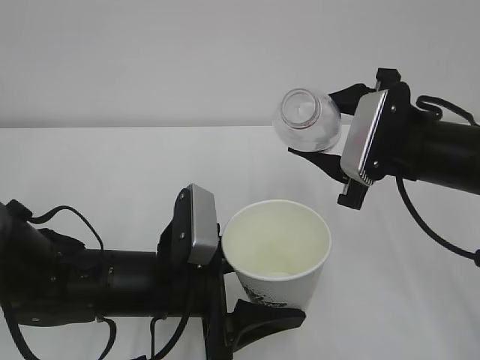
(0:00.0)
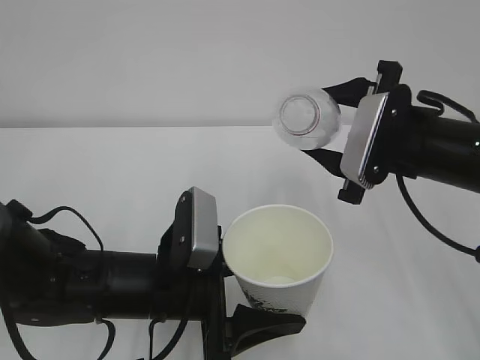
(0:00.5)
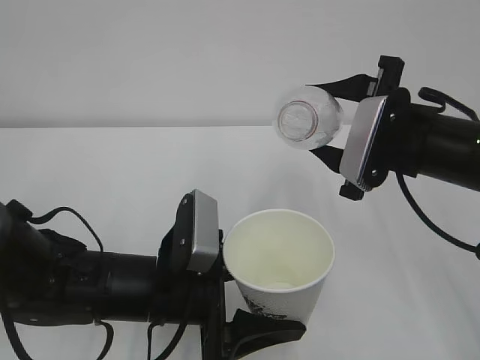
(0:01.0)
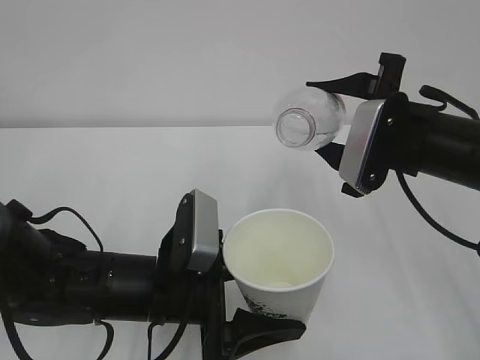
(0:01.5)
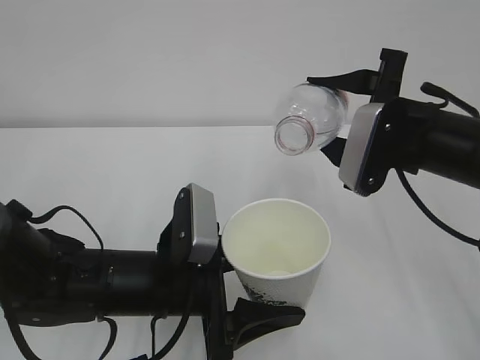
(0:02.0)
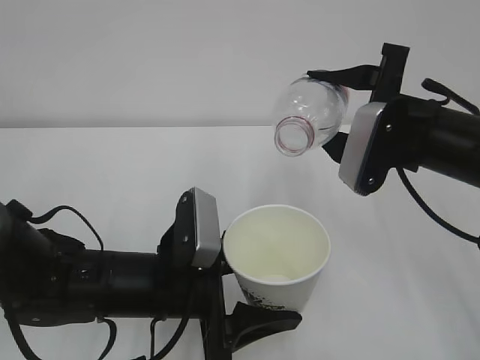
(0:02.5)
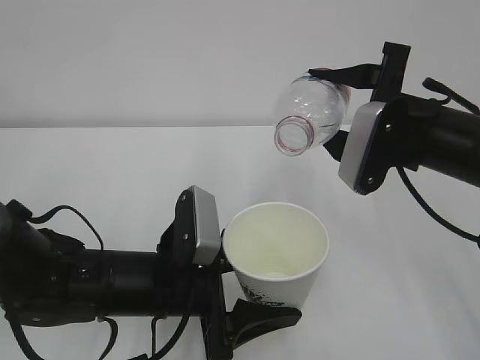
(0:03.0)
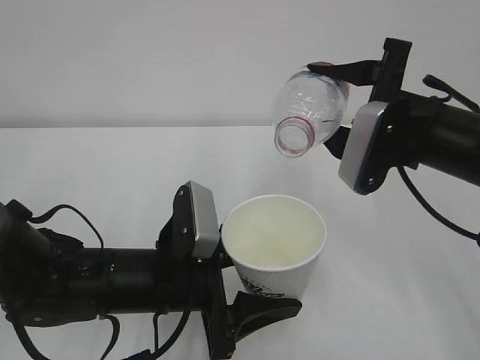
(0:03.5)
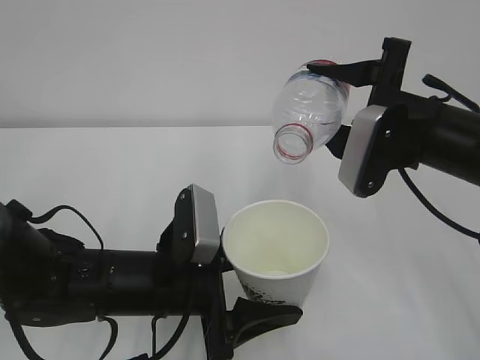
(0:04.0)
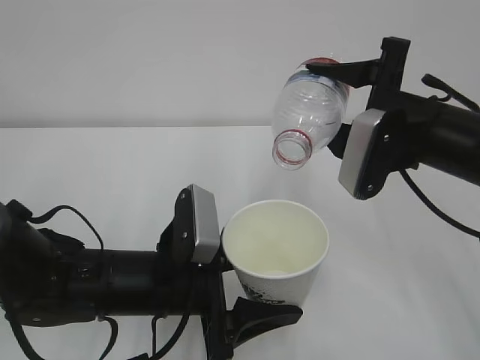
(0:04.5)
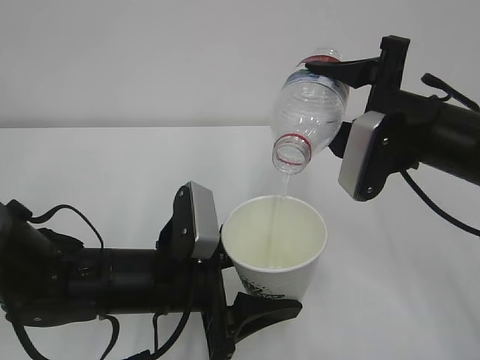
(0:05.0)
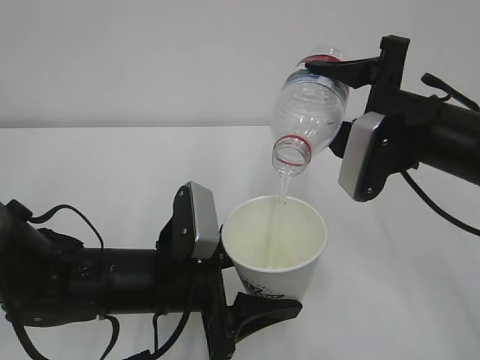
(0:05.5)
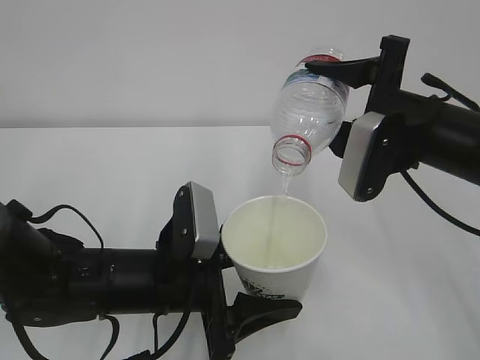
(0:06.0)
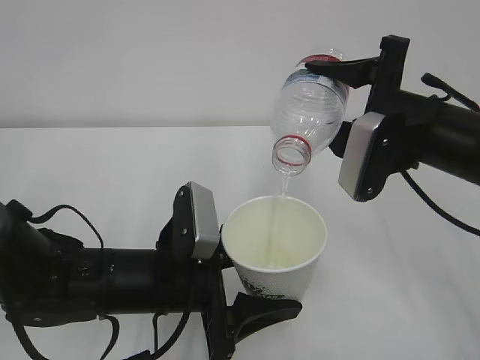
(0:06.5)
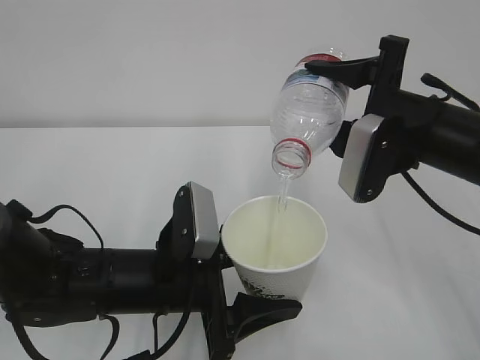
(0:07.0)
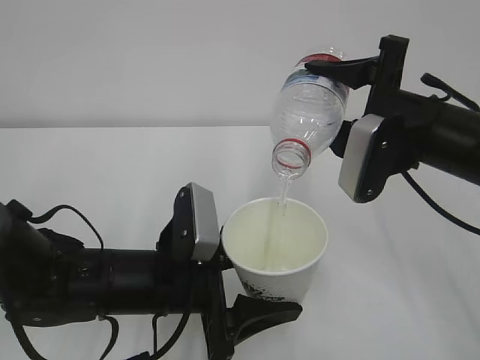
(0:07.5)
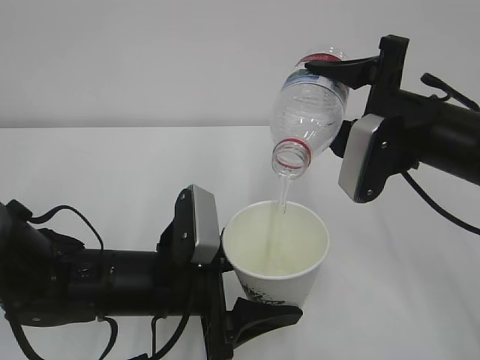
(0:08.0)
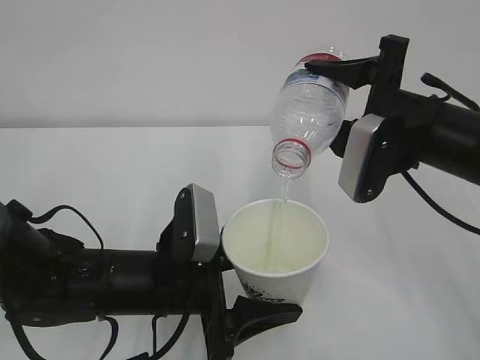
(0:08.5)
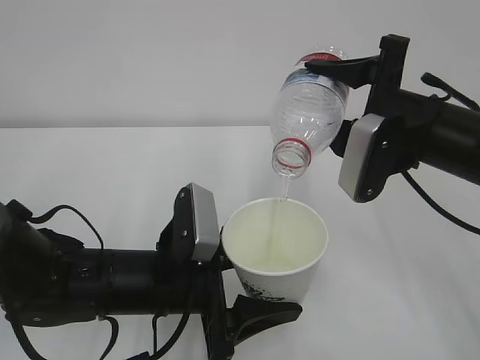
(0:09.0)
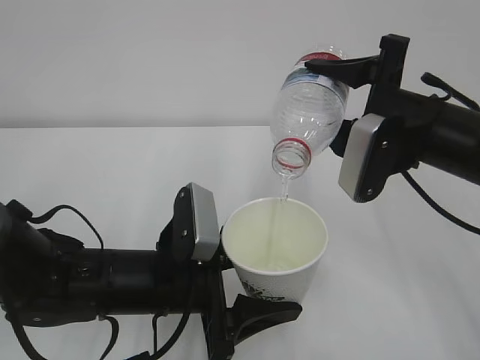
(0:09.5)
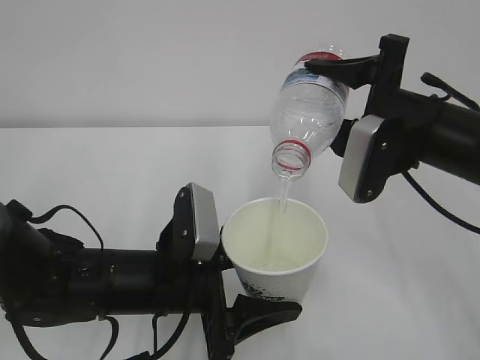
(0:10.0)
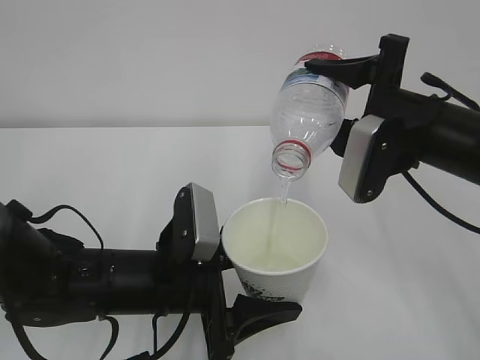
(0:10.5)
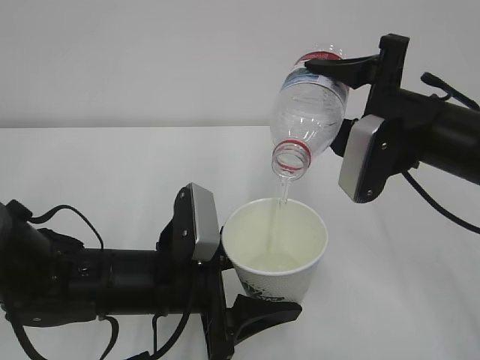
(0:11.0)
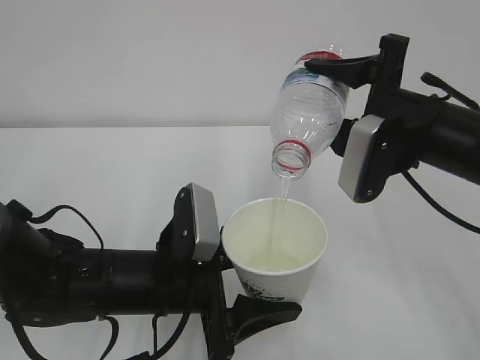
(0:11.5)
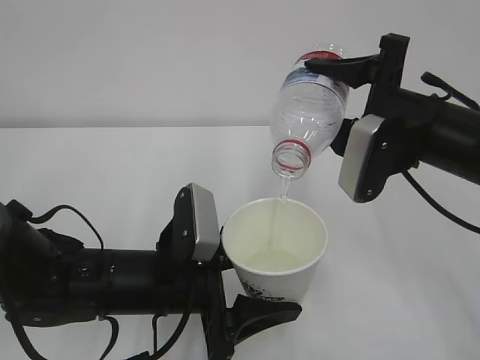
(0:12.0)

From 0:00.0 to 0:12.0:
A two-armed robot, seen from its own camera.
From 0:00.0 to 0:02.0: The grippers move only a little.
From 0:02.0 to 0:06.0: The grippers stay close to where they were, moving slightly.
From 0:06.0 to 0:12.0: Both grippers stay put.

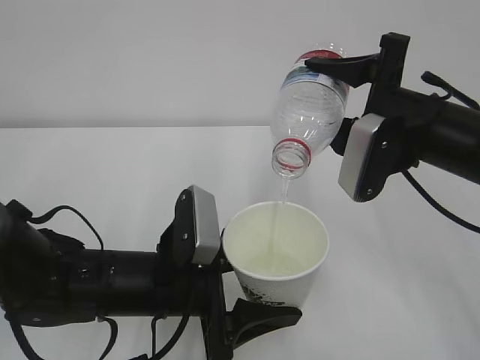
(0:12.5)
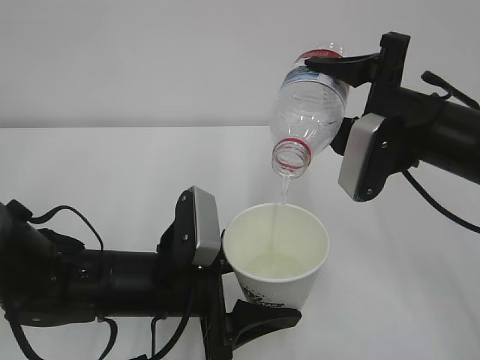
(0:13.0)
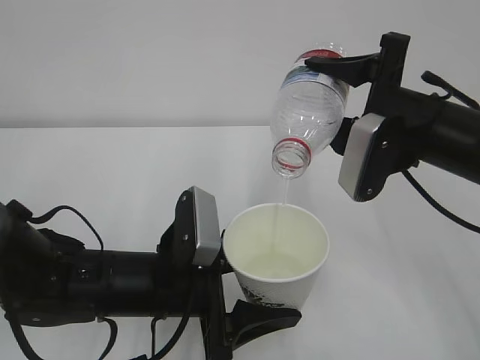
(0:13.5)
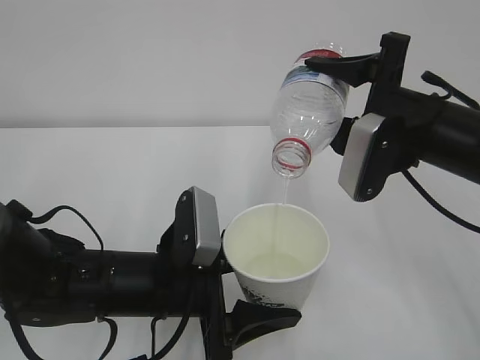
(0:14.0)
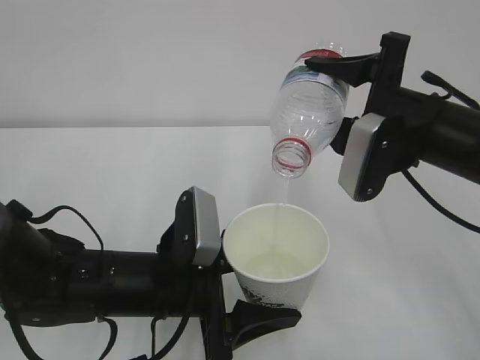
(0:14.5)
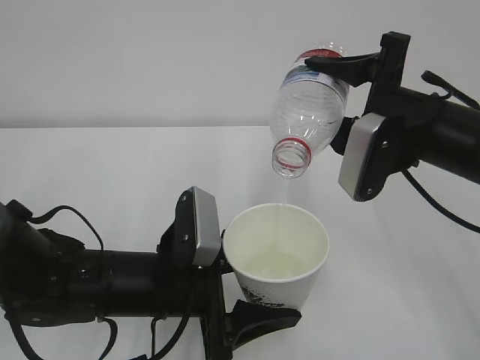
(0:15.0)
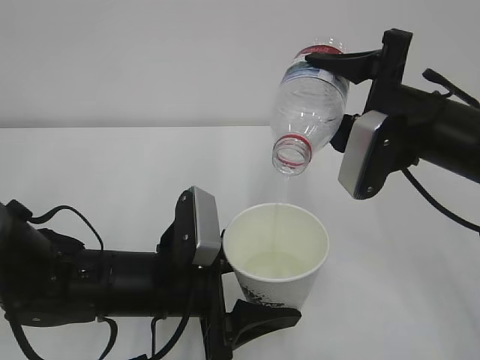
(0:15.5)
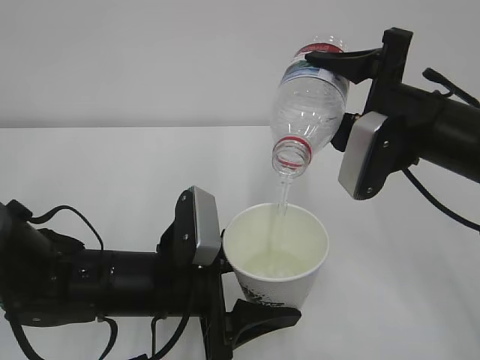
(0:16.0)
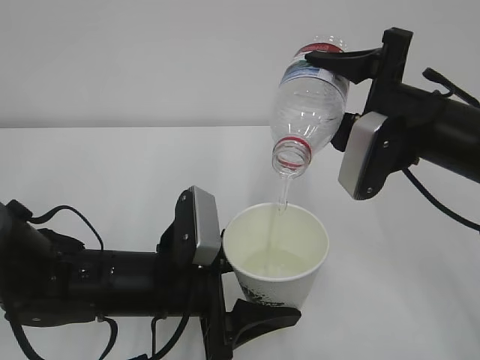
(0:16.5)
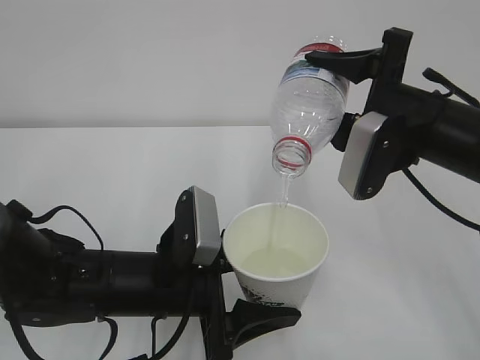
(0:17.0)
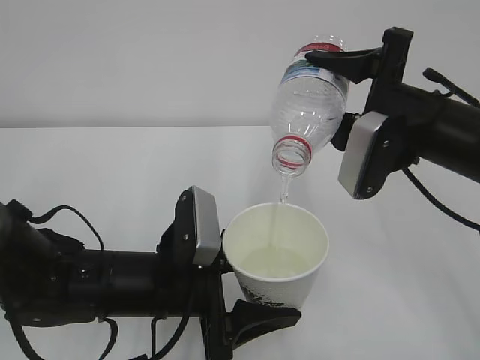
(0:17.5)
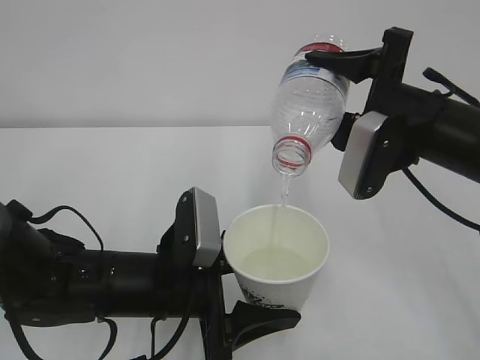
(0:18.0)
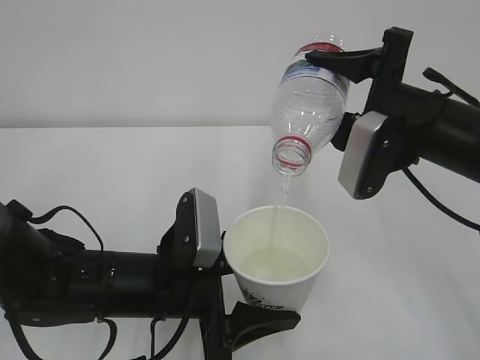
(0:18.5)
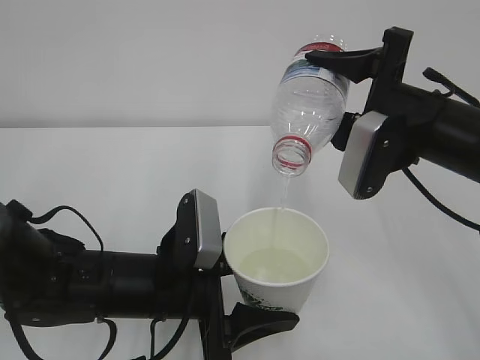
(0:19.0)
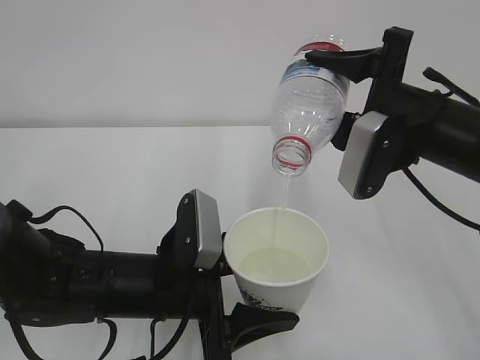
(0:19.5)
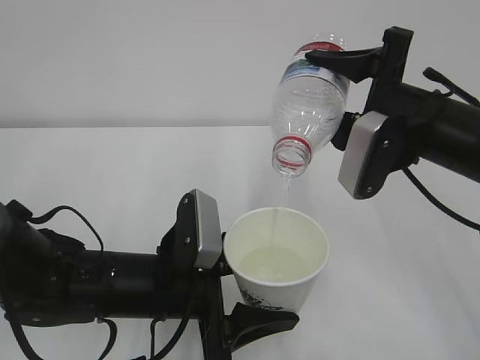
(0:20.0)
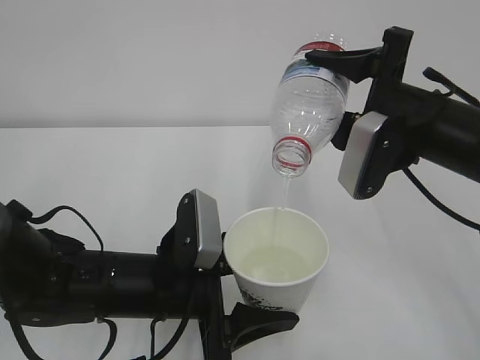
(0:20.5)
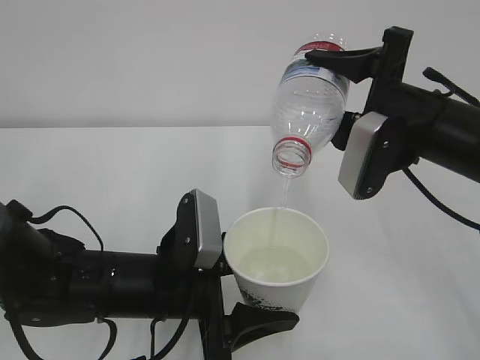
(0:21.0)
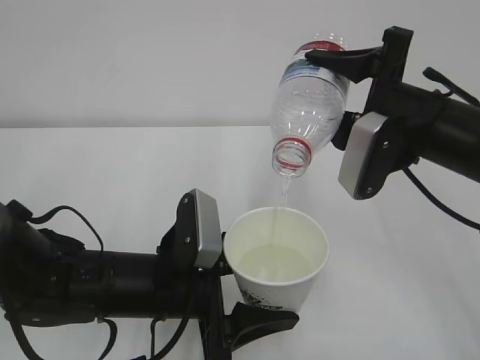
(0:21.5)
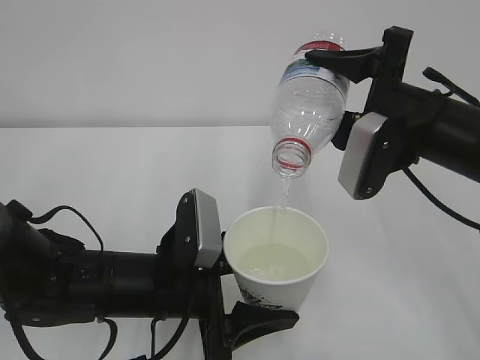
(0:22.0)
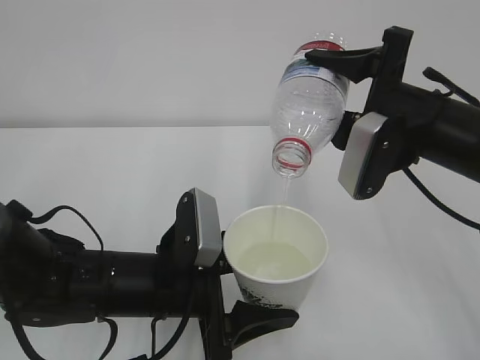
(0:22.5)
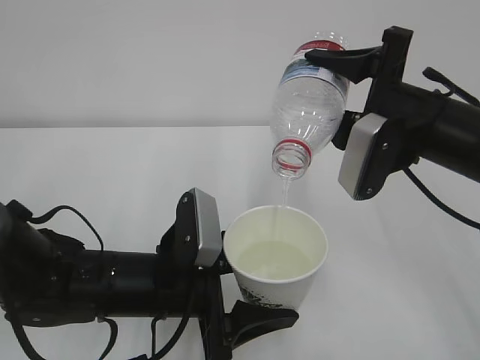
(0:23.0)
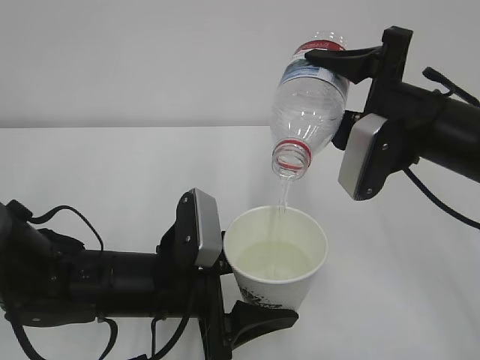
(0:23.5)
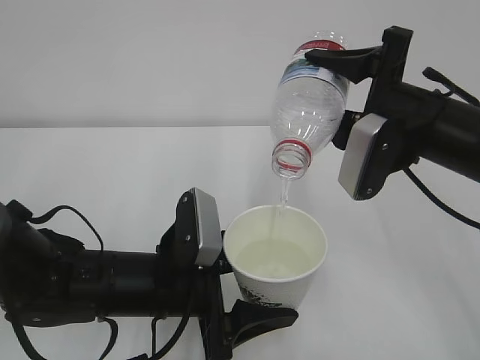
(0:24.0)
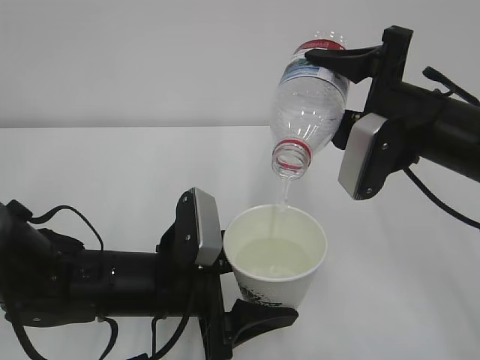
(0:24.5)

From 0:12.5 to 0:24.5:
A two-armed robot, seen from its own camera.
From 0:12.5 to 0:24.5: Neither gripper changes place.

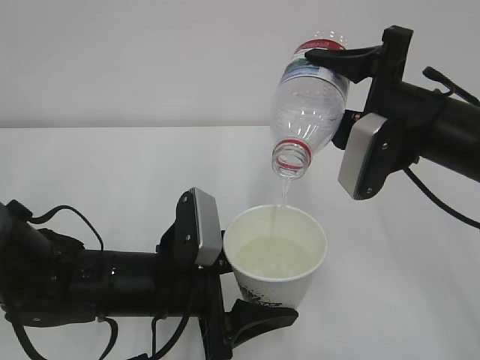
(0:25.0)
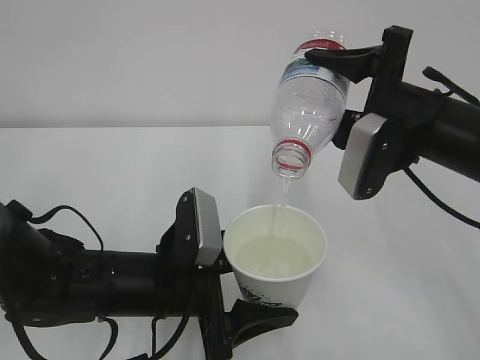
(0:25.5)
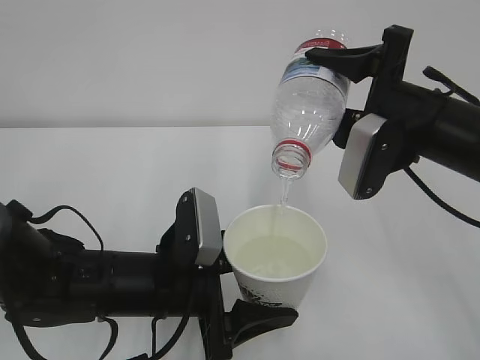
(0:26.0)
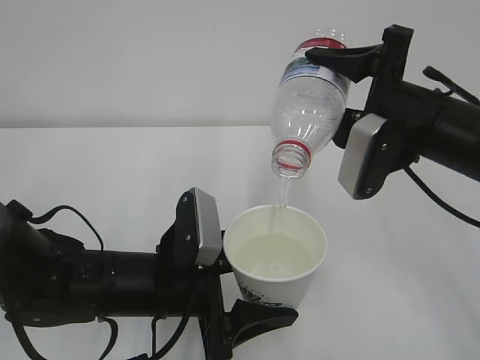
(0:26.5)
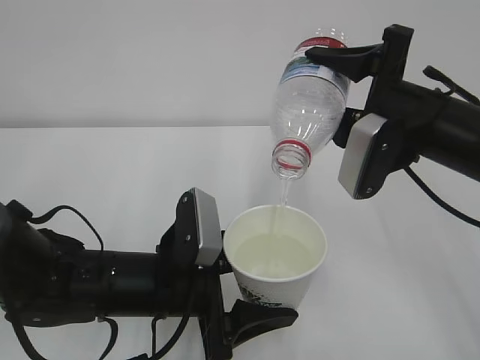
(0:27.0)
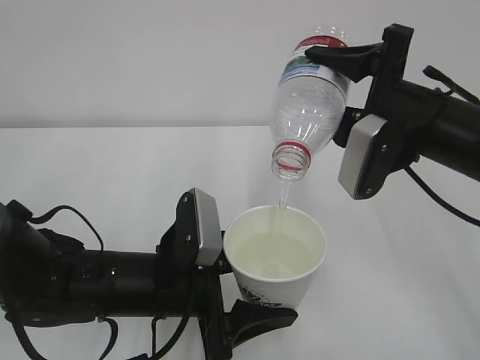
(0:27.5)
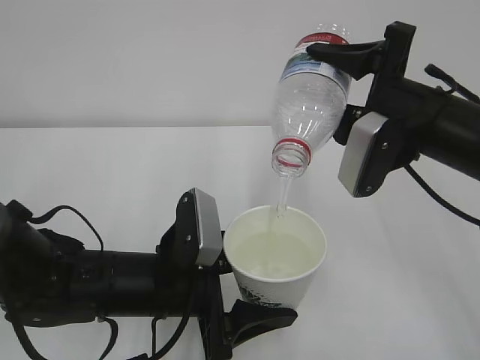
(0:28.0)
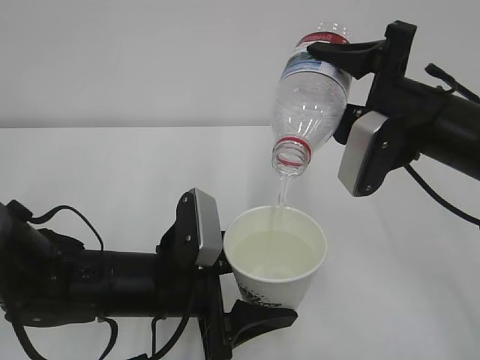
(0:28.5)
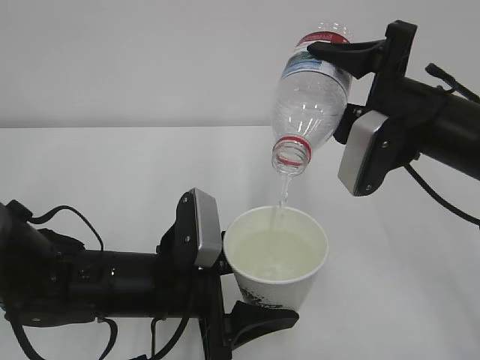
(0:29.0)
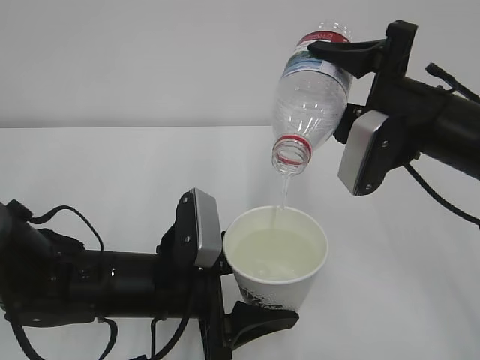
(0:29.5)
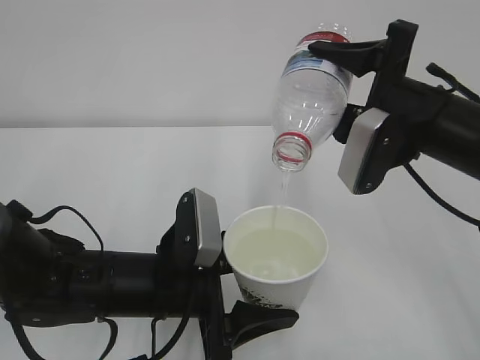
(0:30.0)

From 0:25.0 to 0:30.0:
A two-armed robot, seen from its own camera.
From 0:25.0 to 0:30.0: Both grippers stay about where they are.
